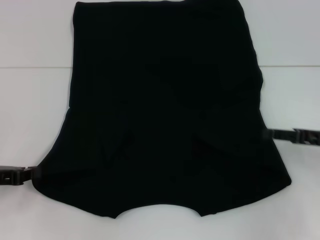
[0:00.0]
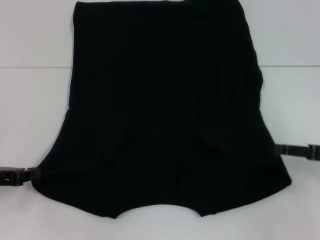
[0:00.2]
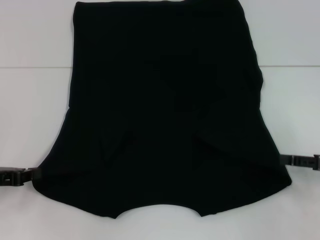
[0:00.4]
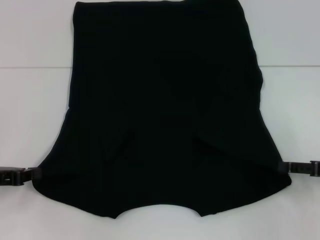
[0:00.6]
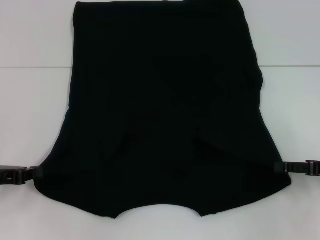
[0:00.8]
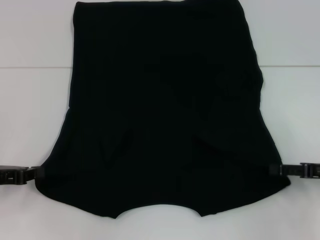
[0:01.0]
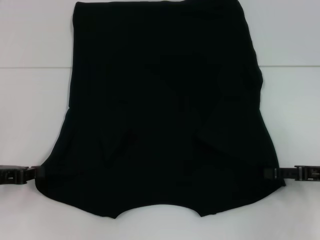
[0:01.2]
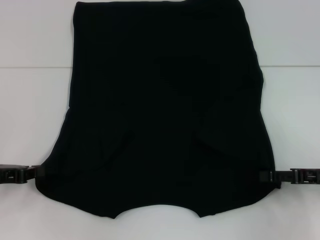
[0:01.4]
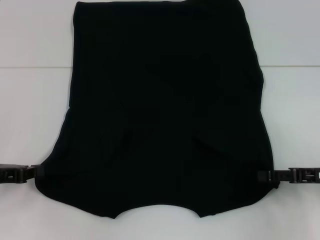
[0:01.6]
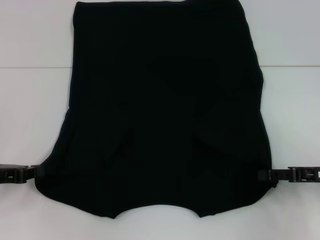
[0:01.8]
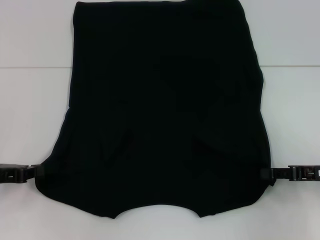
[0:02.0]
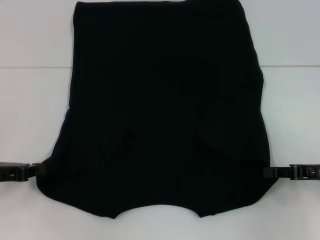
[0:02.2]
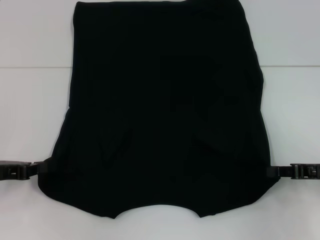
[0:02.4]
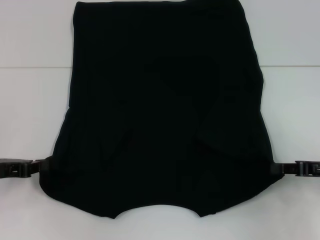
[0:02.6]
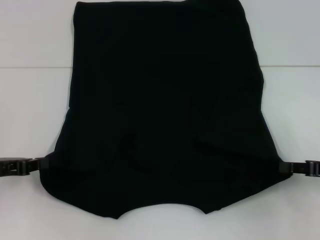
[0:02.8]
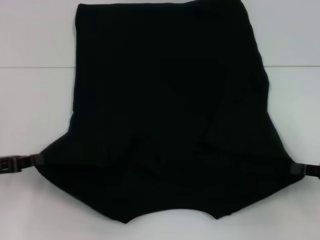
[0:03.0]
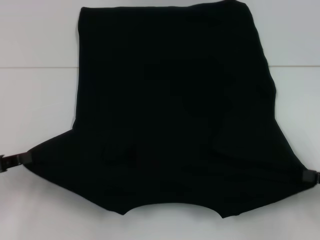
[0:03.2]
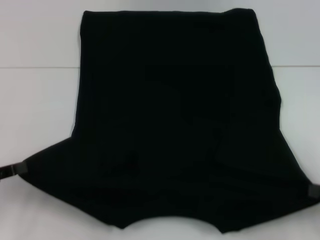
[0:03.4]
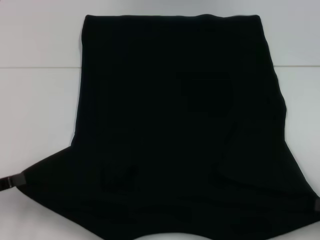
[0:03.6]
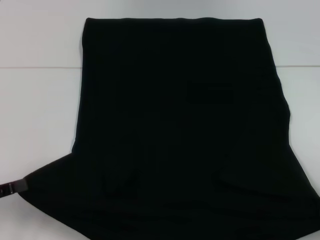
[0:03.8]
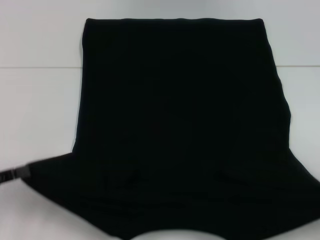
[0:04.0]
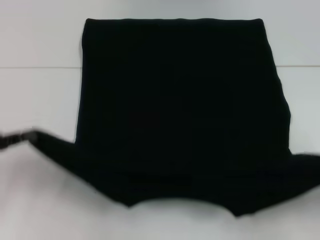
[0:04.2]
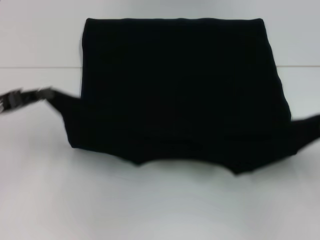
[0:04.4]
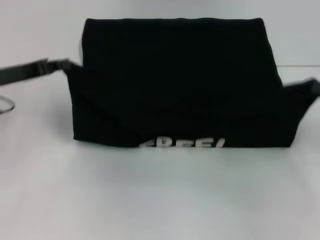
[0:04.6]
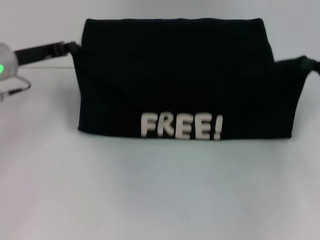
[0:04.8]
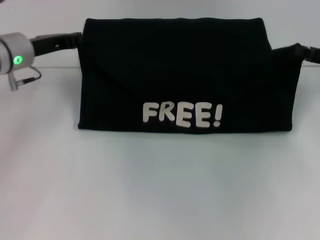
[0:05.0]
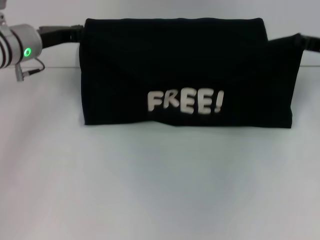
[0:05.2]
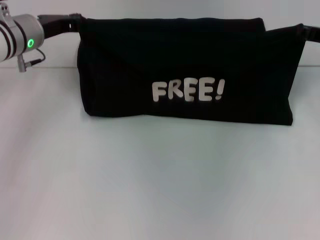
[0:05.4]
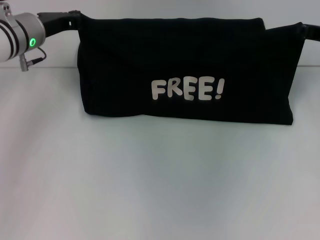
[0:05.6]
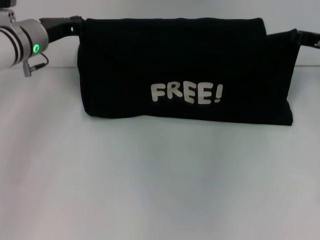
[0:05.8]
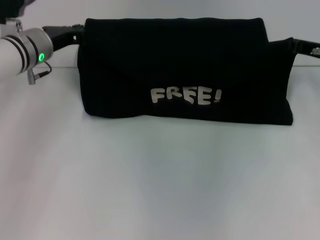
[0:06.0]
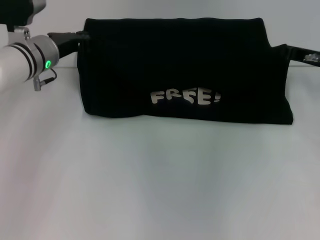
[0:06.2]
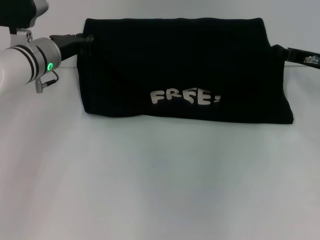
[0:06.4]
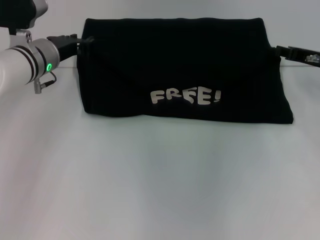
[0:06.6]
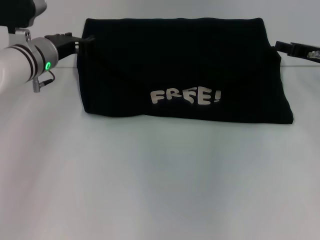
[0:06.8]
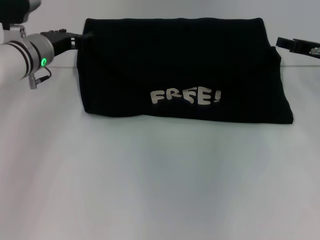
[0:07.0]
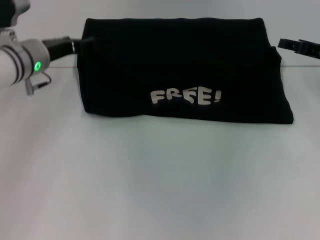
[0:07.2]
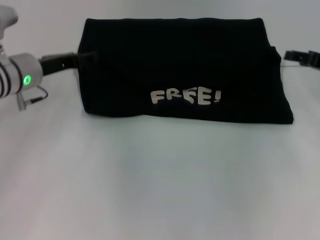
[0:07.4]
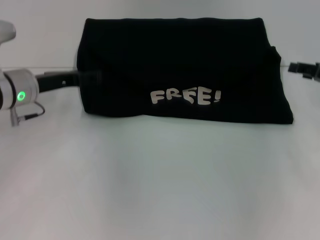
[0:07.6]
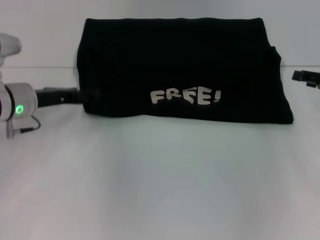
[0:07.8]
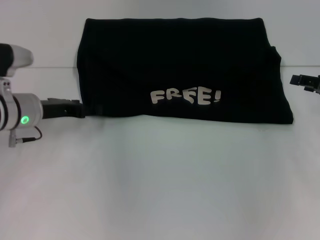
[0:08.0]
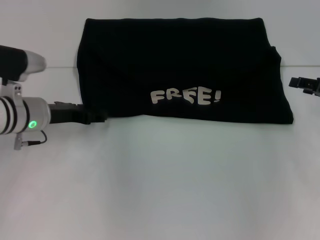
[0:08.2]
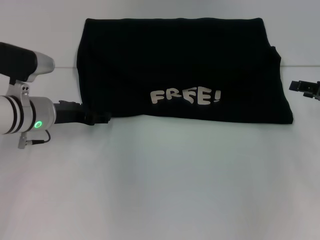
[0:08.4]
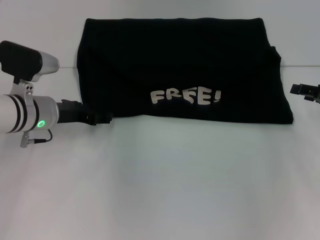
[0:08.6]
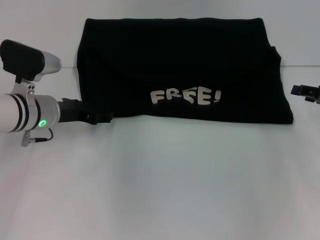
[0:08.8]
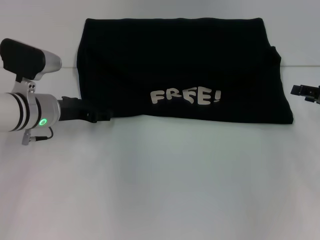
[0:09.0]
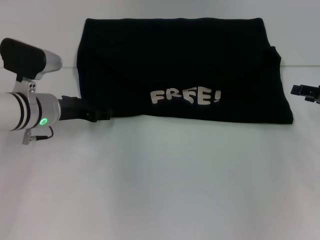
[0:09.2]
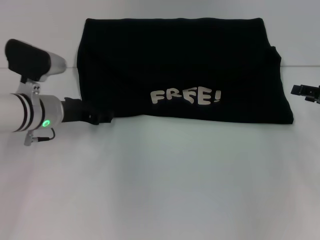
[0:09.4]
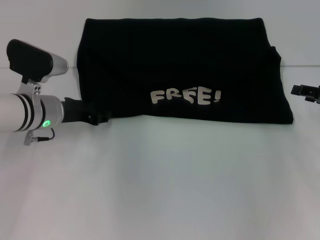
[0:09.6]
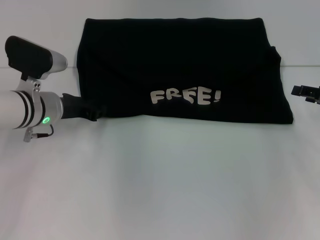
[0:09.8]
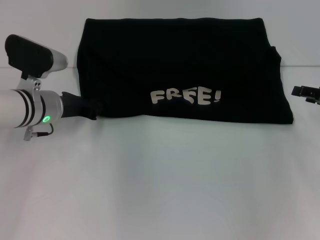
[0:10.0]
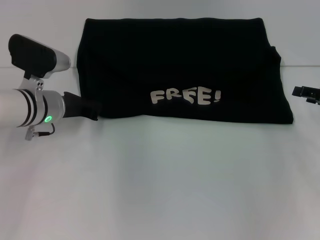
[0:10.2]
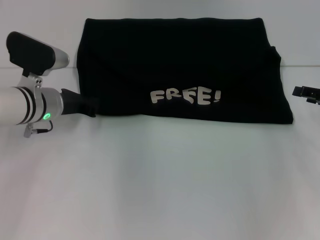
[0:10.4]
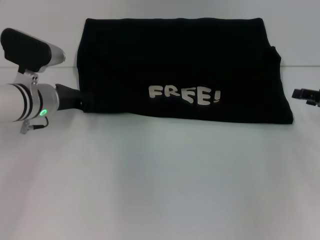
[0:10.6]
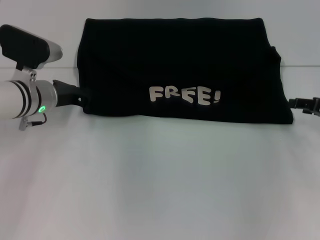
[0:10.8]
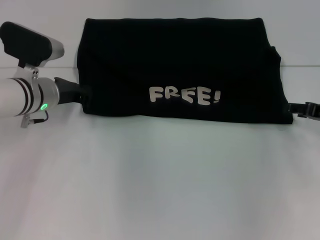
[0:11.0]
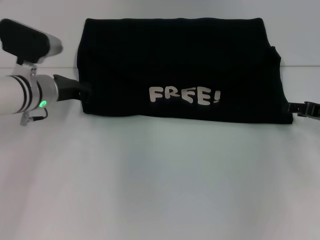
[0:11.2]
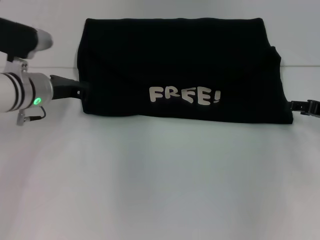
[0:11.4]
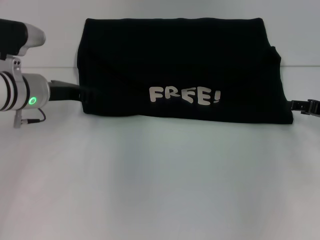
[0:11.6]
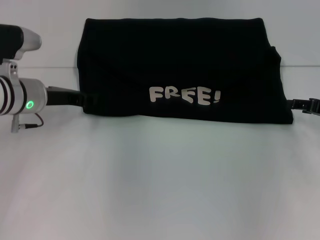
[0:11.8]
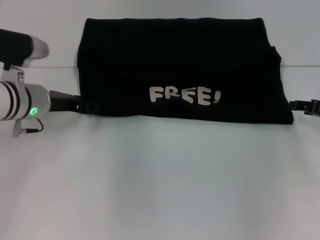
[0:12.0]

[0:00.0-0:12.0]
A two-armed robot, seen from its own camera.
Step, 0:00.2 to 0:02.2: Grab the bottom right corner with your right hand.
Step, 0:02.4 to 0:06.6: Fold the clothes with your left hand.
Step, 0:02.4 to 0:06.6: Fold the clothes with your right hand.
0:00.0 to 0:01.6: The grippers move only a little.
0:01.6 to 0:03.0: The right gripper closes.
0:03.0 to 0:04.4: The right gripper moves some 10 cm backward and comes back. The left gripper travels forward by about 5 cm.
0:04.4 to 0:06.0: The left gripper travels forward and to the right by roughly 20 cm; the right gripper shifts about 20 cm forward and to the left.
0:06.0 to 0:07.6: The two grippers go roughly 5 cm backward. The left gripper opens its fingers, while the right gripper opens up.
0:09.0 to 0:10.4: The left gripper closes its fingers.
0:10.4 to 0:12.0: The grippers move only a little.

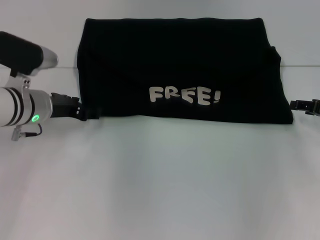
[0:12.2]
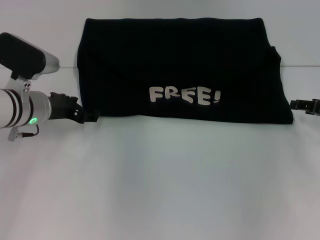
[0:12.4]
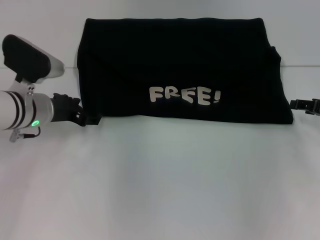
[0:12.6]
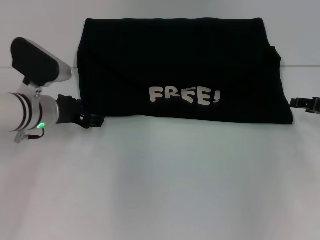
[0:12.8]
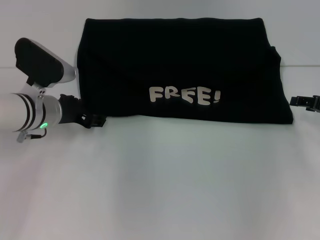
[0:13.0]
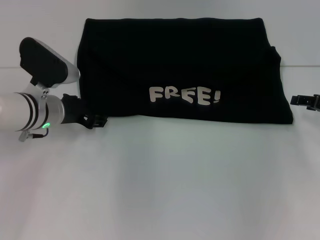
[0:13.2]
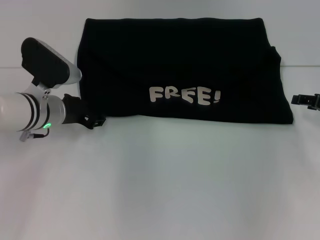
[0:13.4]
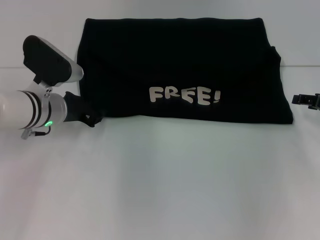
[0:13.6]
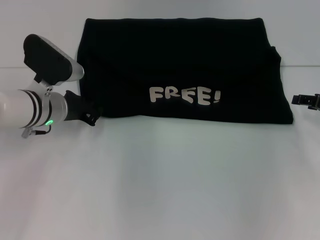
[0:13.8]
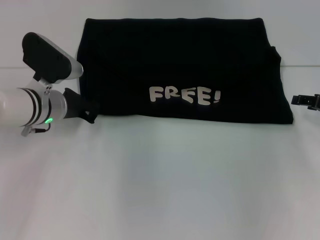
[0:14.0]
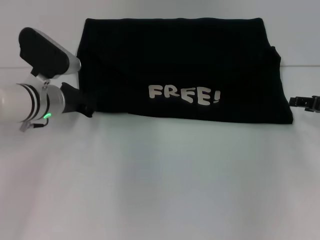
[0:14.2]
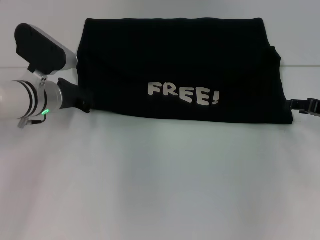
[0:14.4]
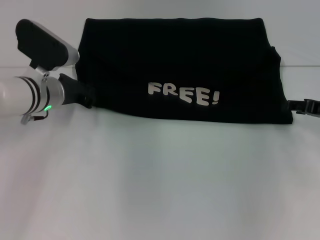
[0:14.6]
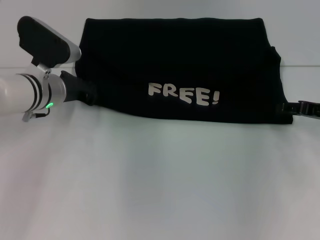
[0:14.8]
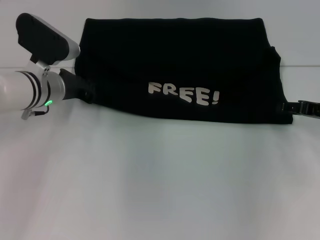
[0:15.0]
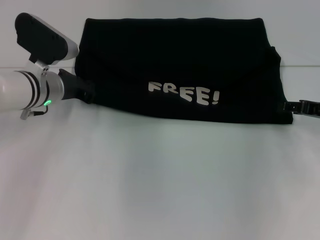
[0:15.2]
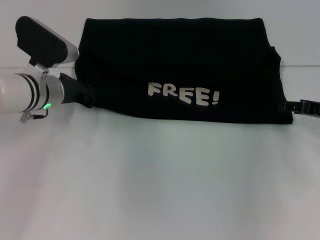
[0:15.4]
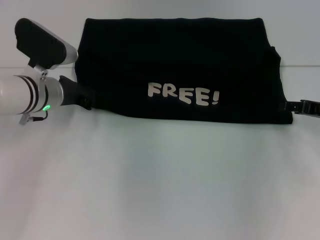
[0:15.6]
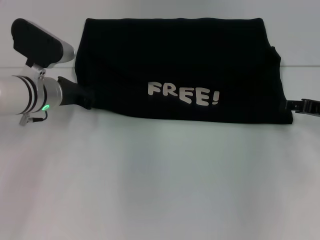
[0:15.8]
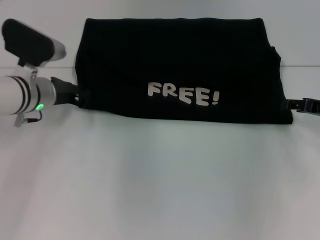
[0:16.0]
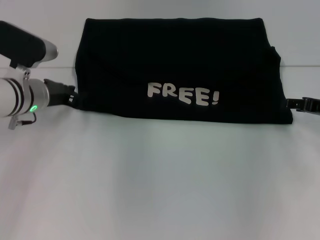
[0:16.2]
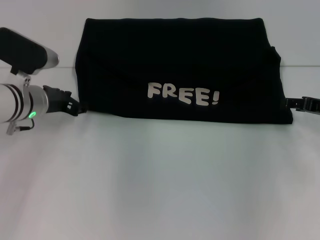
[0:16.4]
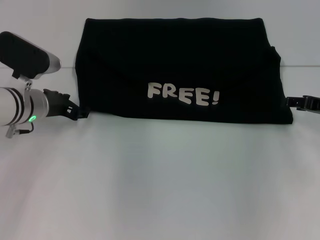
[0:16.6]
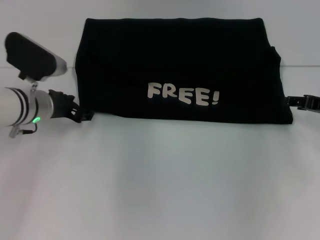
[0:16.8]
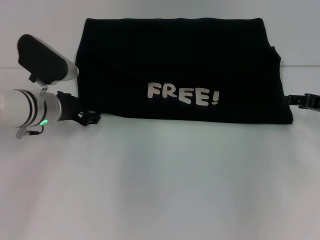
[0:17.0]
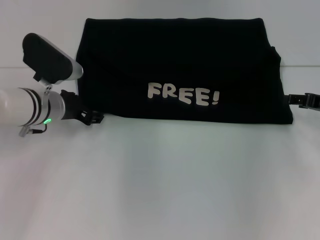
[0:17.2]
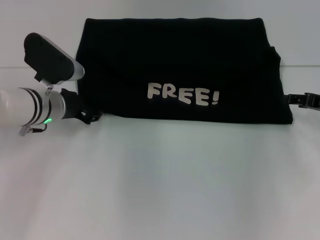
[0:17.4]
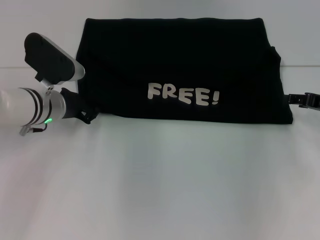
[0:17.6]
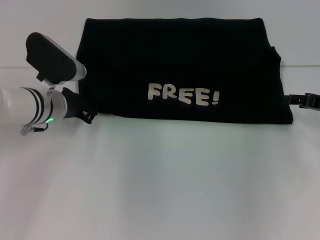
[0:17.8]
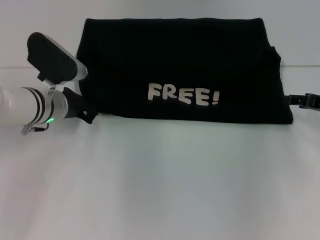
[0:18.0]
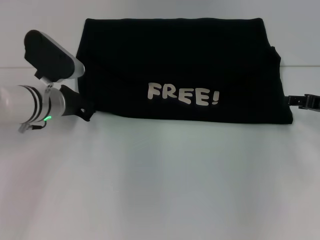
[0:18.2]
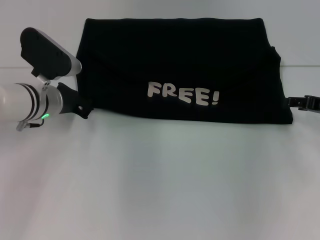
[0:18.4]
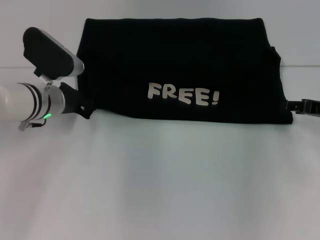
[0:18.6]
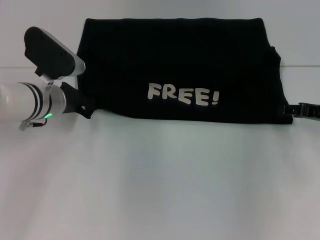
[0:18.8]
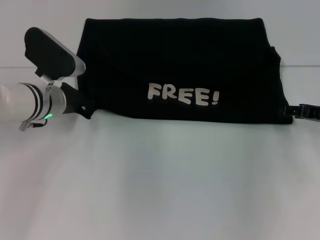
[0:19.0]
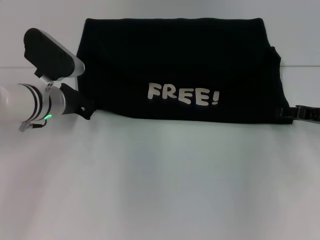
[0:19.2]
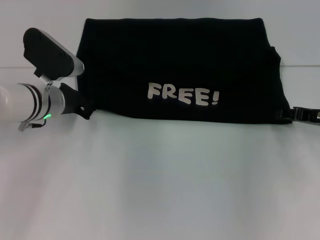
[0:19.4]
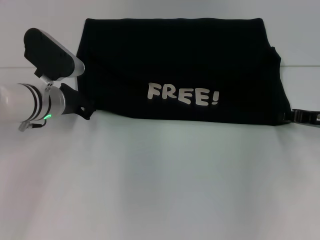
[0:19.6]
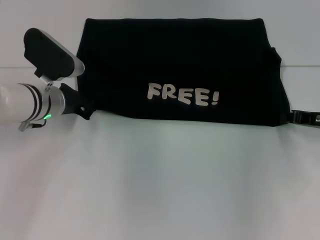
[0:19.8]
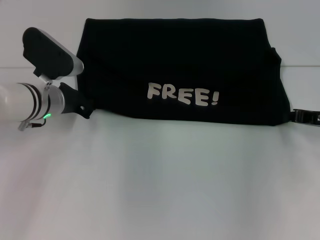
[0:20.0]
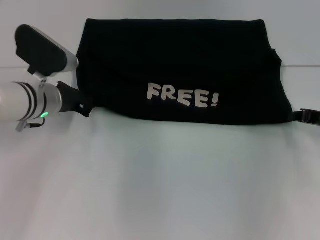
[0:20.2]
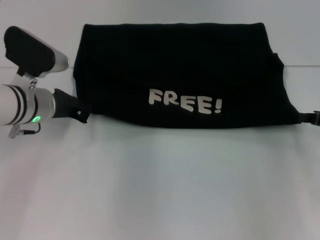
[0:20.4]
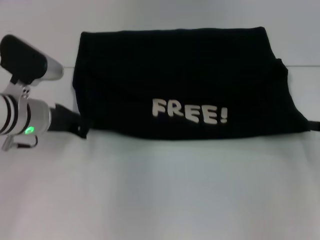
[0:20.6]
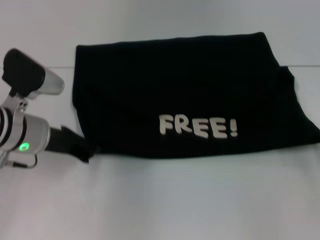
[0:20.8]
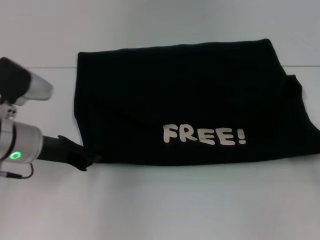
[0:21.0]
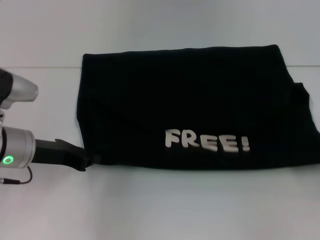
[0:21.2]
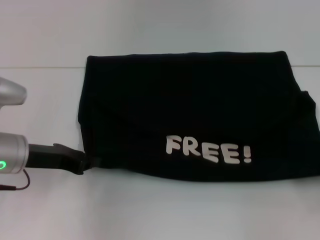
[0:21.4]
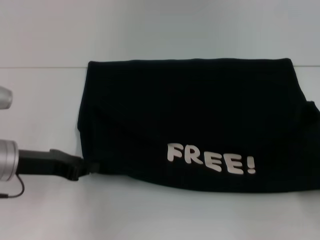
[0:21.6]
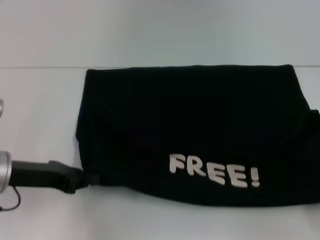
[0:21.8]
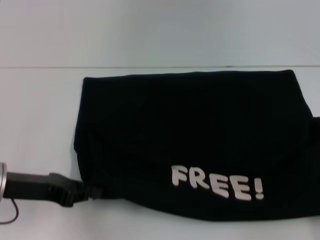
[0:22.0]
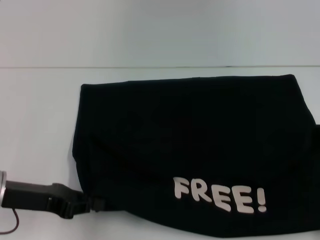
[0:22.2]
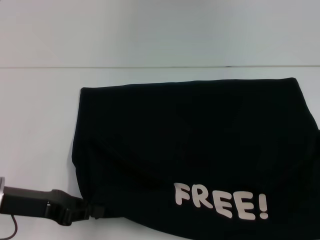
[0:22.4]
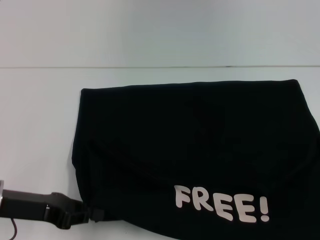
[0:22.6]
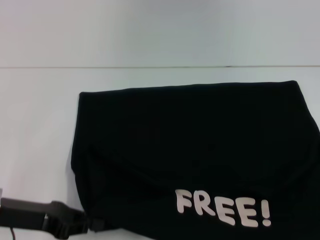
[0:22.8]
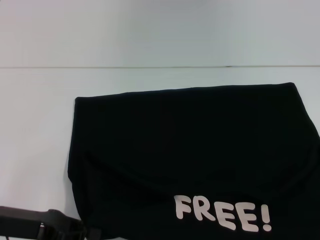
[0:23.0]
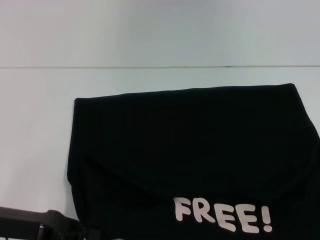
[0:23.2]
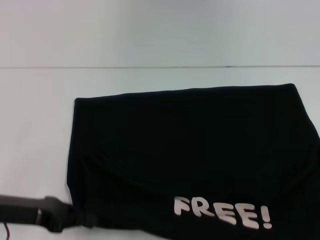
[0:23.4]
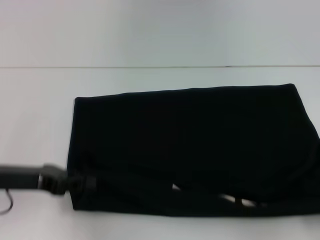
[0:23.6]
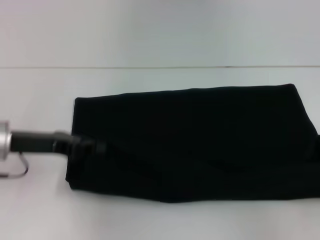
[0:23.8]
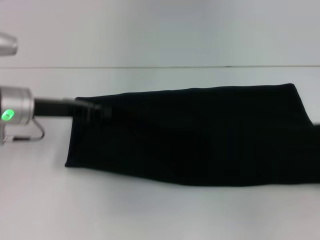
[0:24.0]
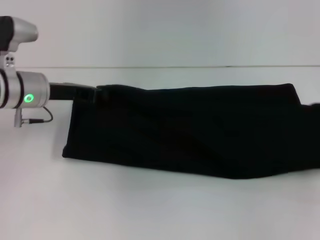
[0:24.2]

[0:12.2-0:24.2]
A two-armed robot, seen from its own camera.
Step, 0:12.2 to 0:23.0: Pull the clothes with your left hand.
Step, 0:12.2 to 0:23.0: Pull the clothes with your right hand.
0:12.2 to 0:15.2: There are only small adjustments of the grippers.
0:15.2 to 0:16.6: The left gripper opens.
0:16.6 to 0:18.2: The left gripper closes its fingers.
0:18.2 to 0:19.8: The right gripper closes up.
0:19.8 to 0:21.2: The left gripper shifts about 10 cm backward. The right gripper travels backward and to the right by about 15 cm.
0:21.2 to 0:22.6: The right gripper heads backward, covering approximately 10 cm, while the left gripper travels backward by about 5 cm.
0:22.6 to 0:24.2: Both grippers travel together forward, some 15 cm.
